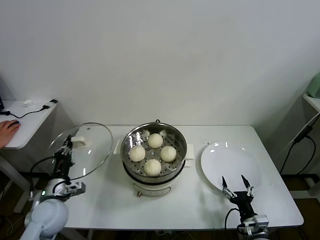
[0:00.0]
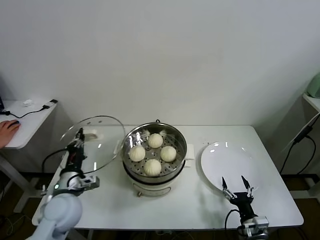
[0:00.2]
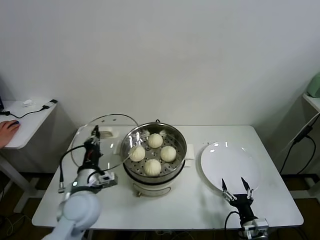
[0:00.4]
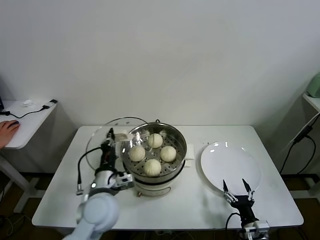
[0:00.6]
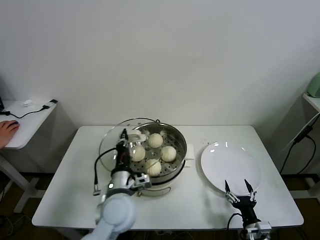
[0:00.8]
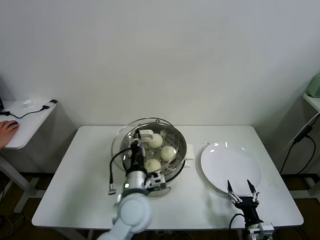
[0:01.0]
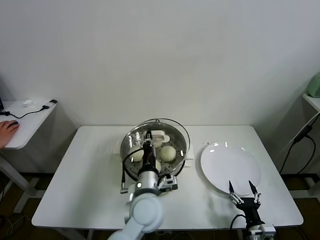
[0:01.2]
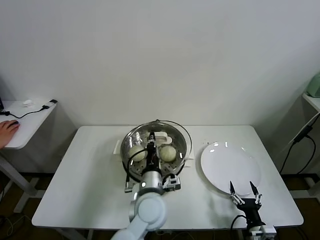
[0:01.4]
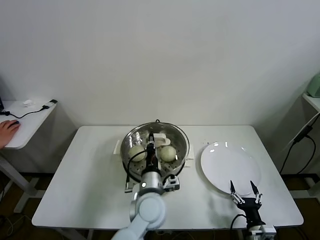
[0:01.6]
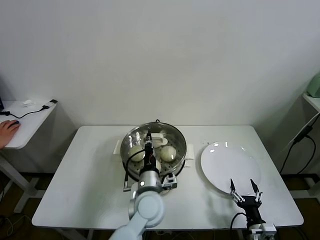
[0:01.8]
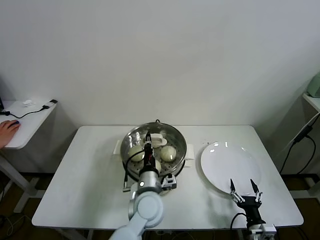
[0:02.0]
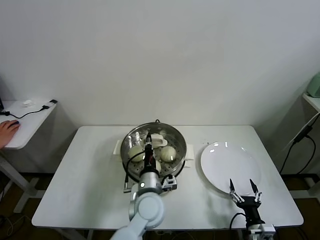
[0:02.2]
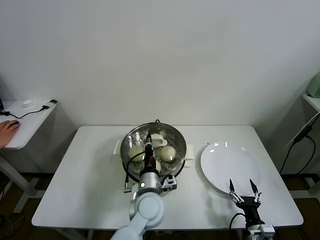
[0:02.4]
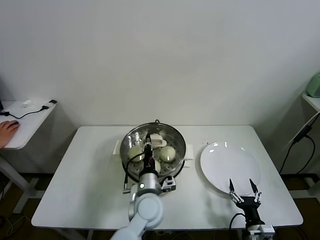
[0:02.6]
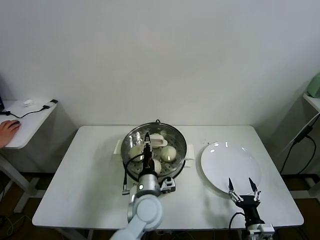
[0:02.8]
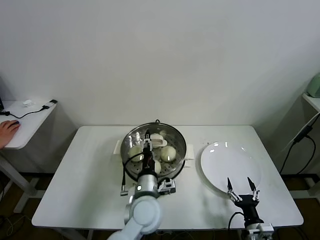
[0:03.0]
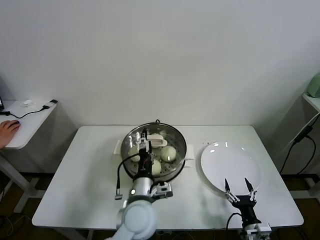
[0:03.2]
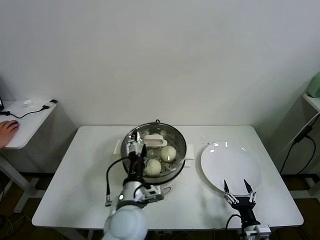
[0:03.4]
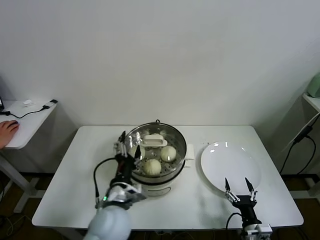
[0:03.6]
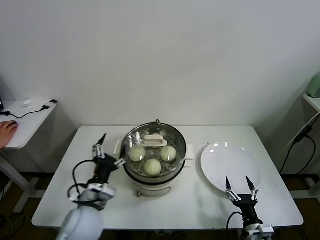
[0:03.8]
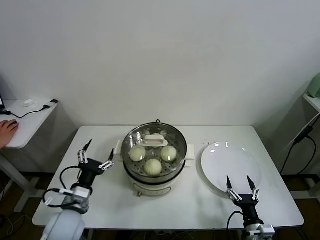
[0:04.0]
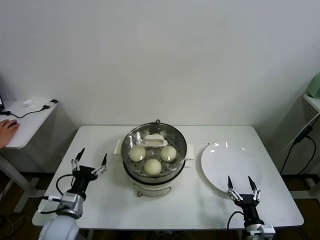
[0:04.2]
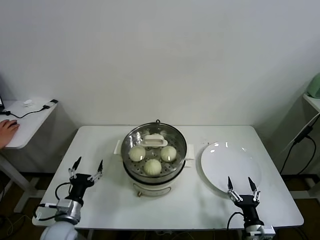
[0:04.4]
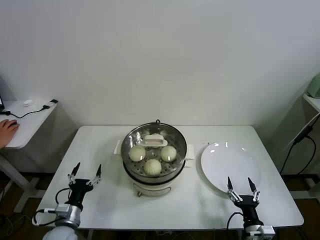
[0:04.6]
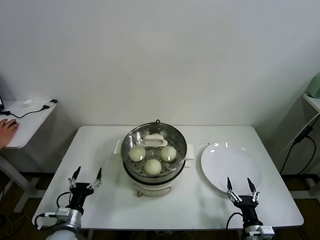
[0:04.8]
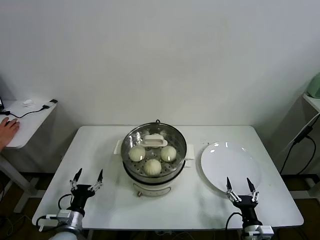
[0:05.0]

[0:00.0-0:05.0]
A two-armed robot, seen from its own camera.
Task of the whole recording: take steamed baozi put them in steamer.
Step, 0:00.0 to 0:02.6: Place the pot lid on the steamer with left gripper.
0:00.0 to 0:01.6: The left gripper heads to the right, covering approximately 30 cm.
0:01.6 to 0:03.4: The left gripper ends up about 5 cm from where it was, and opens its fingers.
0:03.4 to 0:05.0: The left gripper shifts some 30 cm to the left and downward.
